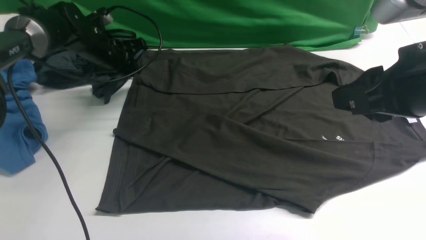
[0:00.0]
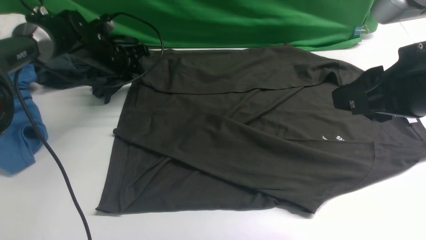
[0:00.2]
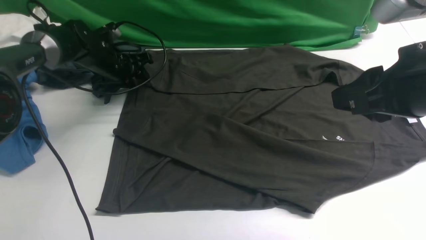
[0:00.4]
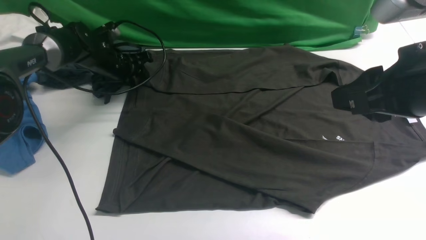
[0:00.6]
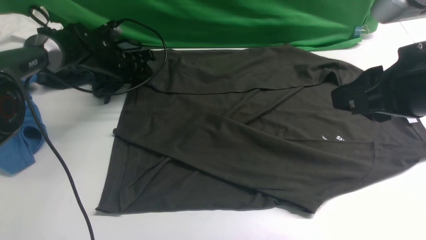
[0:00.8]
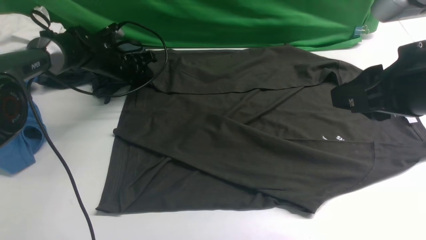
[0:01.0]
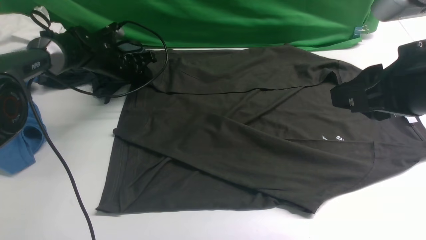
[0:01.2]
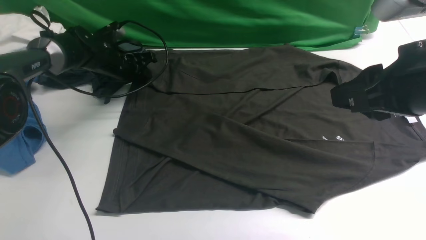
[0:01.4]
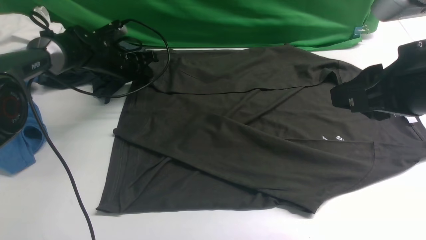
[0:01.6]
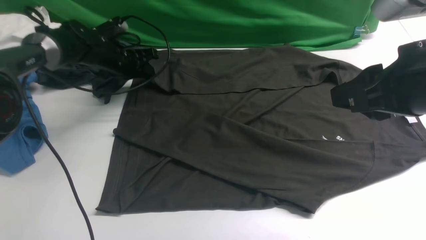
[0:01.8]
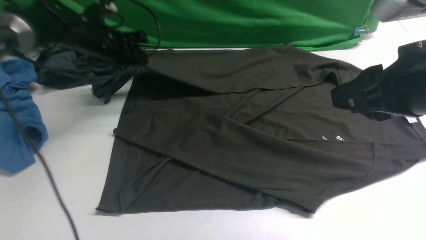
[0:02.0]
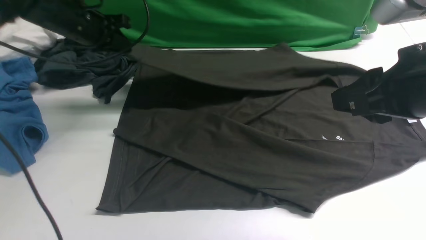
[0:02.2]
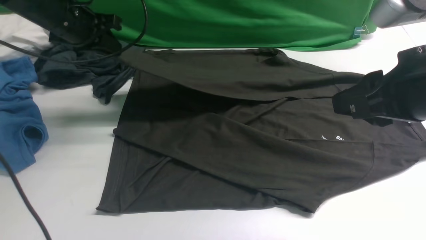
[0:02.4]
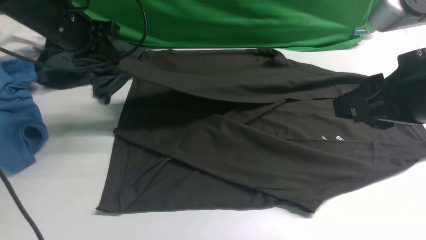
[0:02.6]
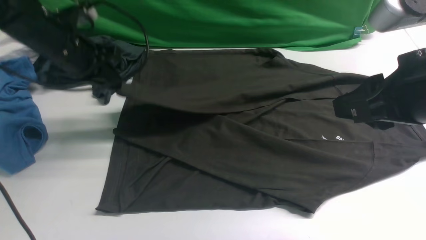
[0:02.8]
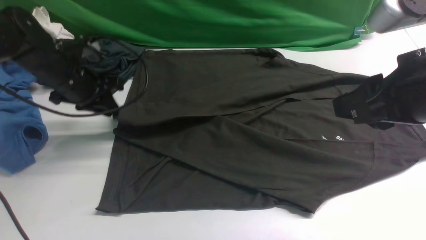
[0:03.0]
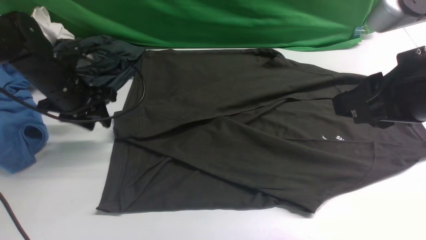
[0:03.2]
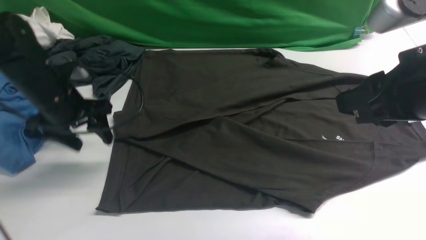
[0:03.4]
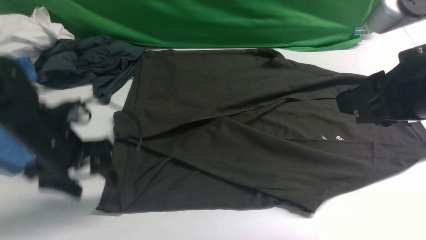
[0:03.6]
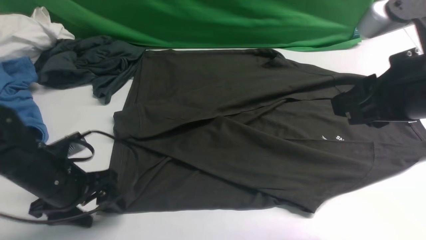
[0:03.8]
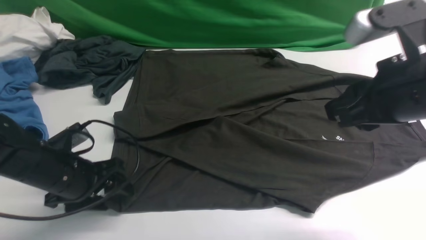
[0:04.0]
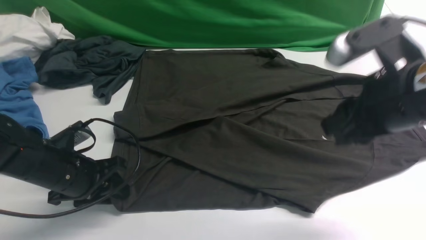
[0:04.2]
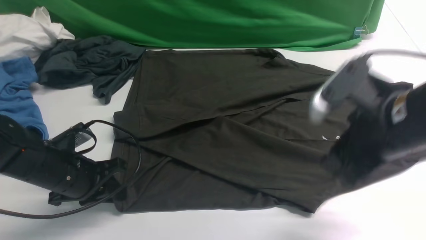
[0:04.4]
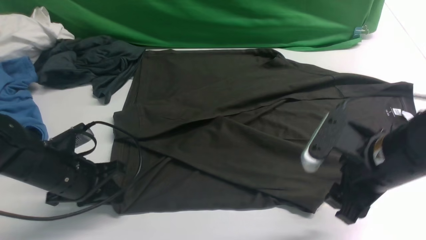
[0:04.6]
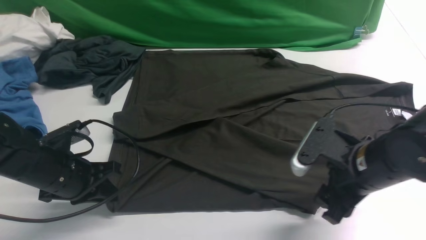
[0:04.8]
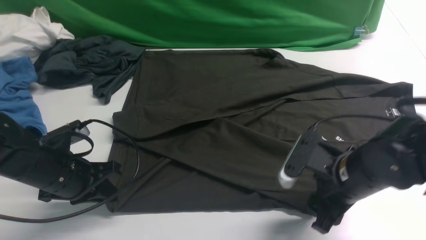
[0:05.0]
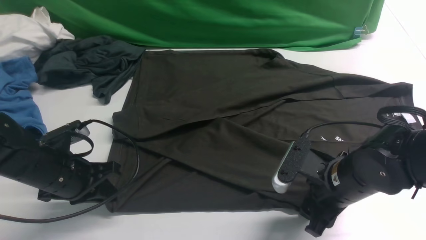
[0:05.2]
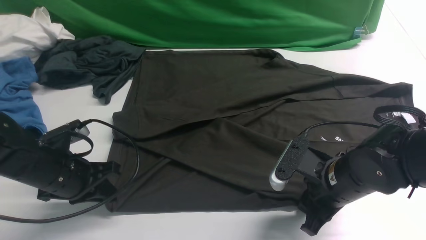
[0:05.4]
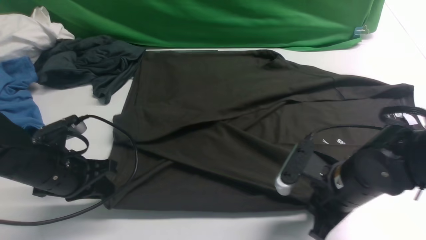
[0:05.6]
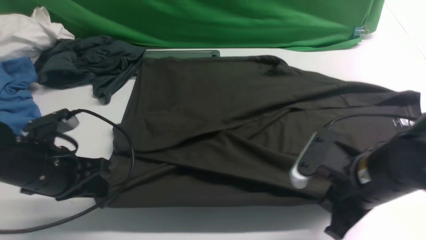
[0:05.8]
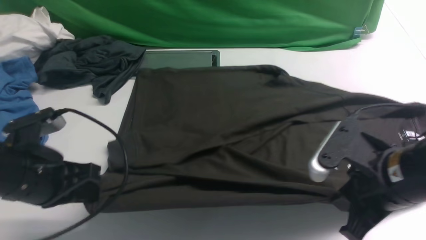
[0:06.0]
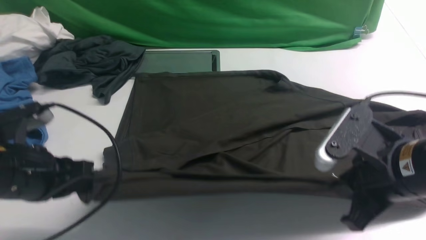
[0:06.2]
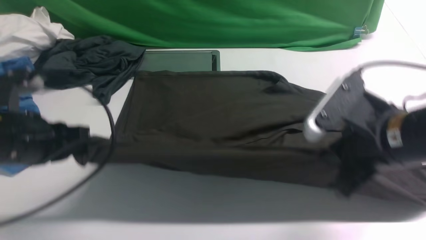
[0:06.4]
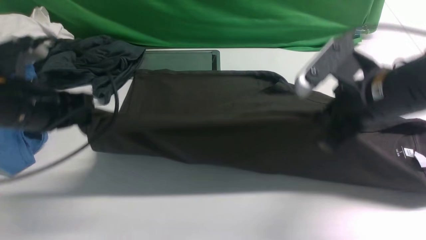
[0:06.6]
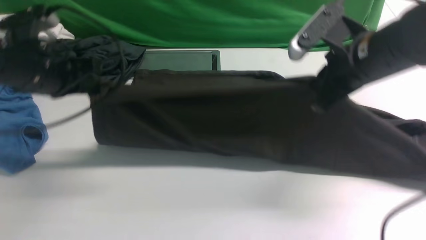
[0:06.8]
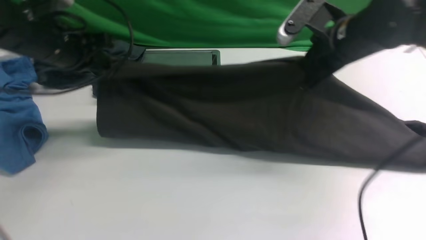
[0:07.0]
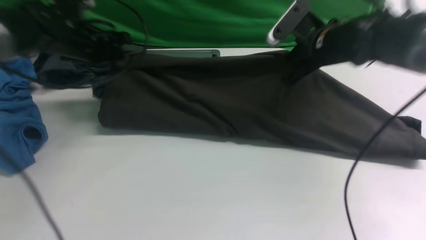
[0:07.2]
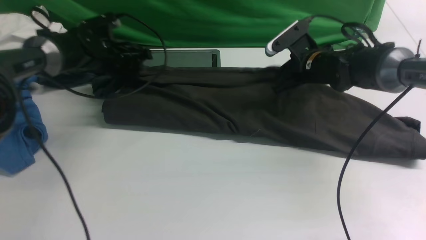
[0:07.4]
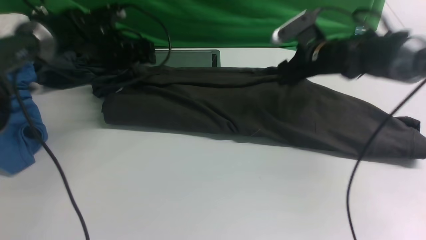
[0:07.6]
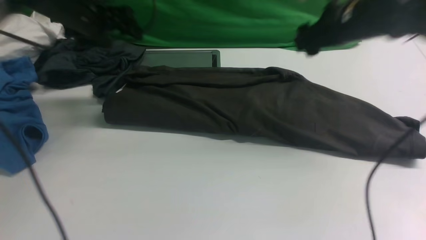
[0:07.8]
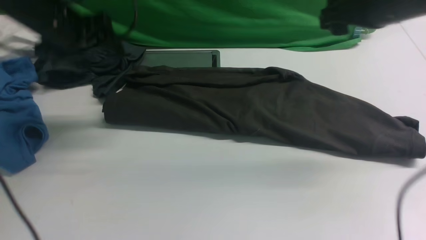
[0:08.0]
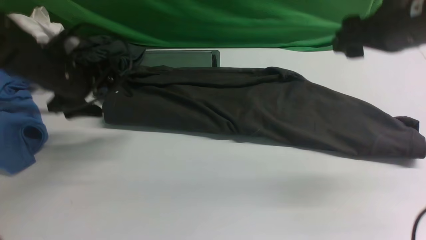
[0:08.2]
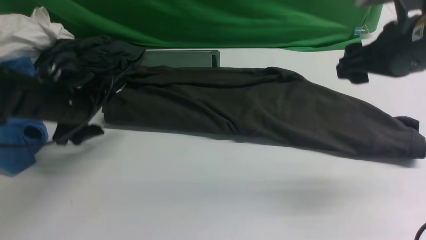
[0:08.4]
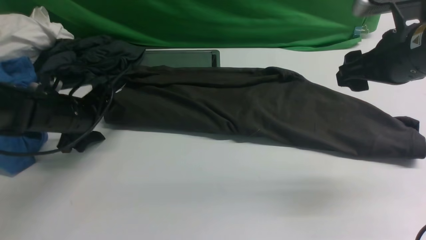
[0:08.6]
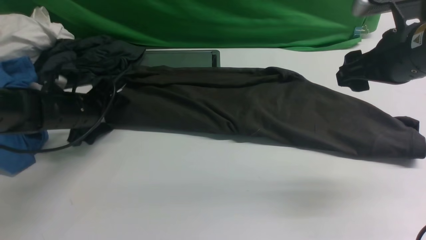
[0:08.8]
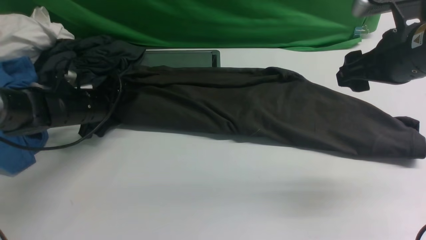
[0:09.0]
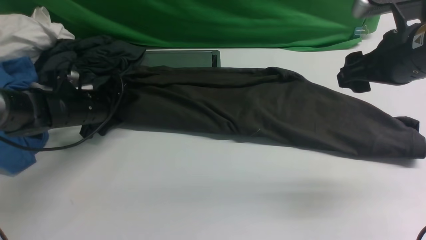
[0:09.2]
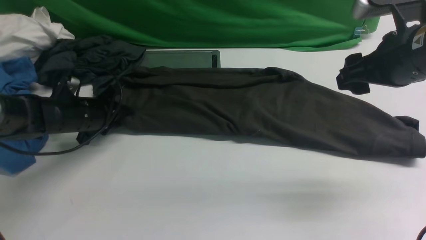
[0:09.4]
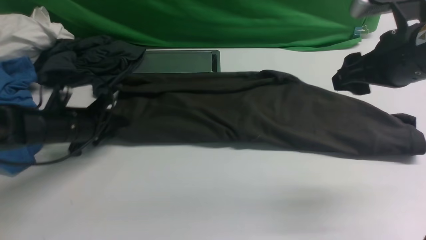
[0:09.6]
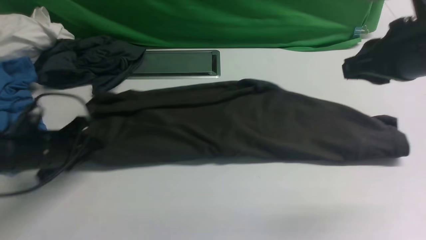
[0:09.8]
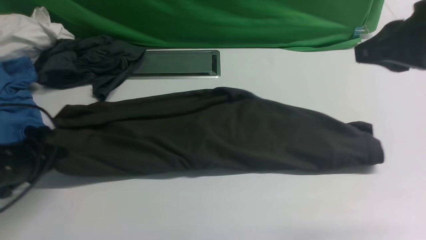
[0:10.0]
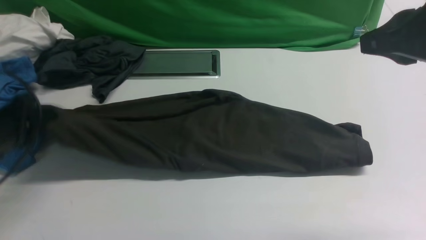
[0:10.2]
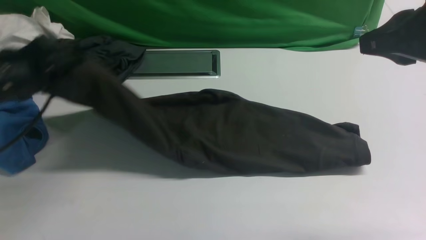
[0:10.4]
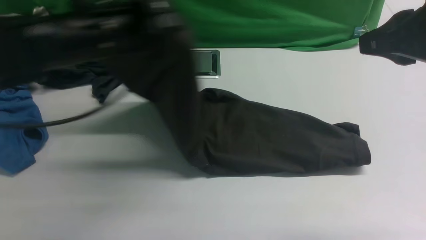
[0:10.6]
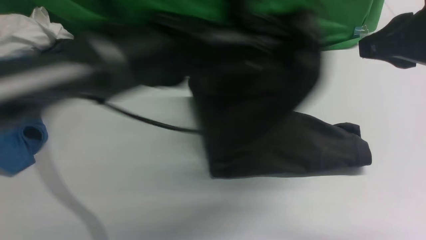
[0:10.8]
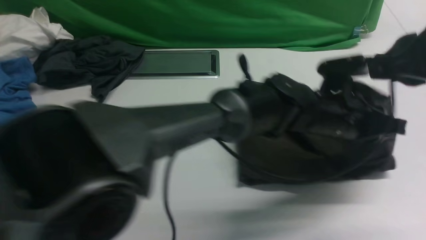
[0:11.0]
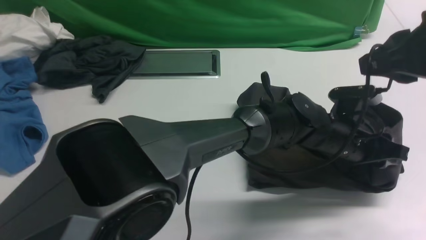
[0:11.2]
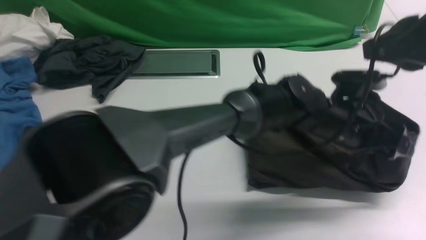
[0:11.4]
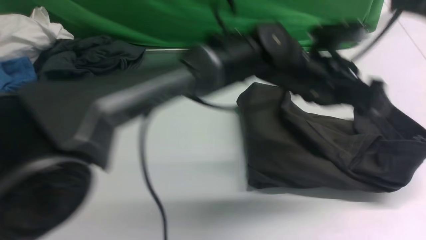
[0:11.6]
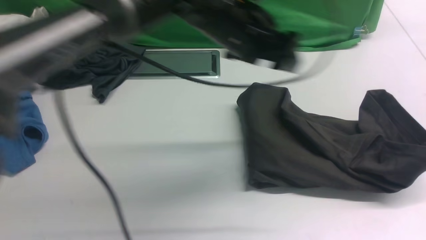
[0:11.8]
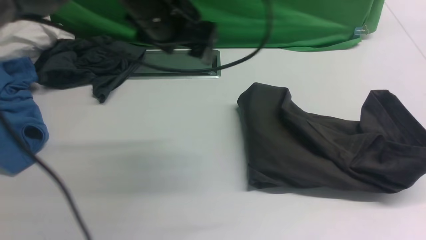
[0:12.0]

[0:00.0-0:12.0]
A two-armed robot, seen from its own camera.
Step, 0:02.0 to 0:03.0: use the left arm to drag and drop the cuff onto the cuff closest to the left arm.
Step, 0:03.2 to 0:06.0: use both arms simultaneously to clamp the lower edge of the clothing fabric.
Step, 0:06.2 to 0:07.6: use both arms to drag the lower edge of the fabric forward and fold it over the upper edge.
Step, 0:07.8 to 0:10.2: Hold the left edge of the fabric with your left arm.
Step, 0:10.4 to 0:11.6: Drag the left edge of the fabric to the left with your left arm and fold it to the right edge.
0:00.0 to 0:01.6: The grippers stay close to where they were, moving slightly.
0:01.6 to 0:03.0: The left gripper is displaced backward and upward by roughly 15 cm.
0:03.0 to 0:04.4: The right gripper shifts about 10 cm downward. The left gripper goes about 15 cm backward and downward, and opens, then closes once more.
0:04.4 to 0:06.0: The right gripper travels downward and back again, roughly 10 cm each way, and closes up. Meanwhile the left gripper travels upward by some 10 cm.
0:06.0 to 0:07.6: The two grippers go about 25 cm forward. The right gripper opens; the left gripper opens.
0:07.6 to 0:09.0: The right gripper moves backward and upward, approximately 15 cm; the left gripper travels backward and downward by some 15 cm.
0:09.0 to 0:10.4: The left gripper goes approximately 15 cm upward and backward, and closes, while the right gripper shifts about 10 cm upward and backward, and closes.
0:10.4 to 0:12.0: The right gripper moves approximately 5 cm, and opens. The left gripper moves to the right, approximately 15 cm, and opens its fingers.

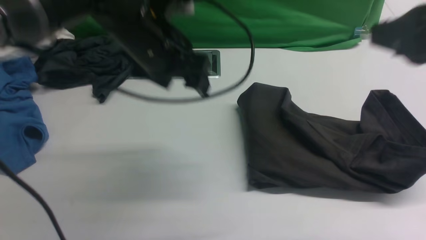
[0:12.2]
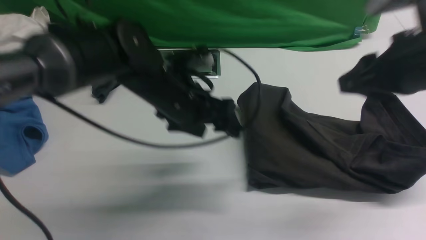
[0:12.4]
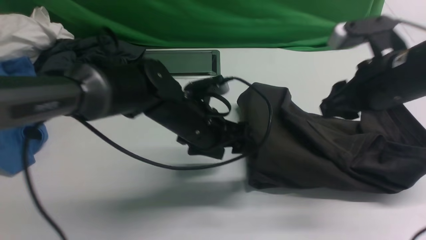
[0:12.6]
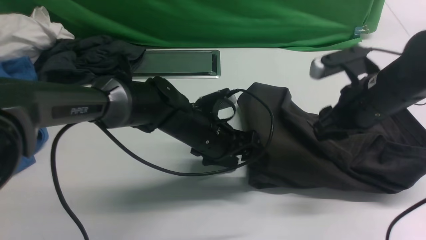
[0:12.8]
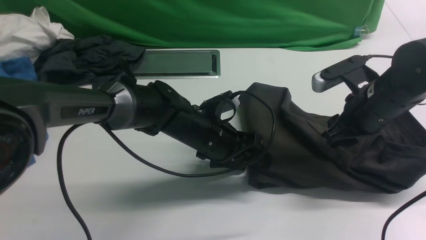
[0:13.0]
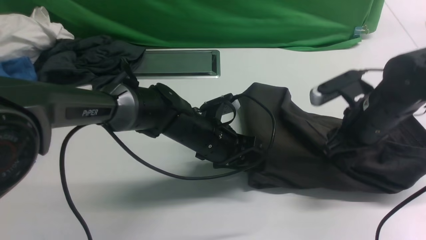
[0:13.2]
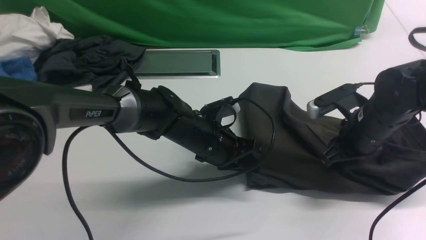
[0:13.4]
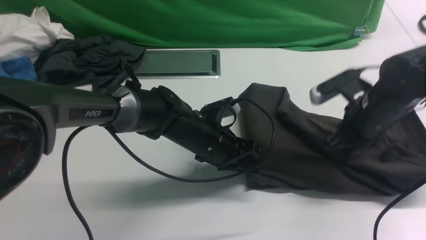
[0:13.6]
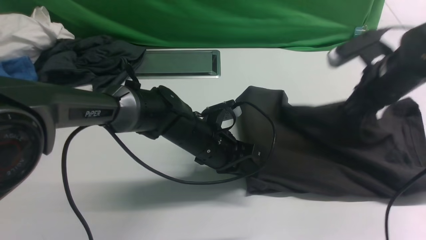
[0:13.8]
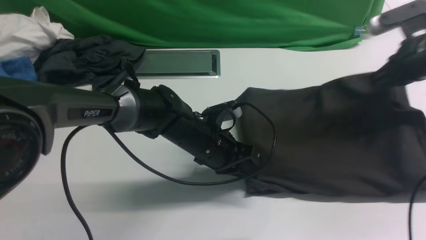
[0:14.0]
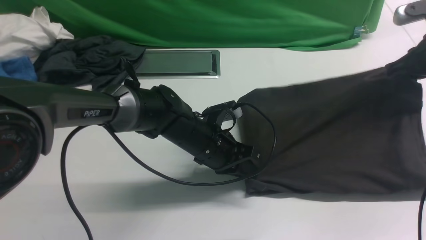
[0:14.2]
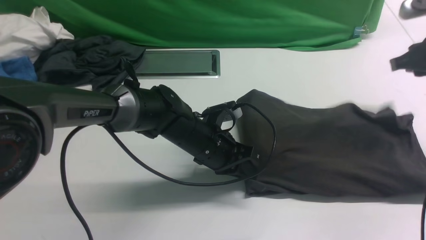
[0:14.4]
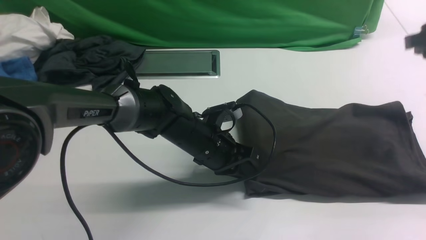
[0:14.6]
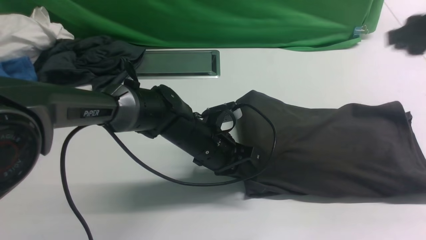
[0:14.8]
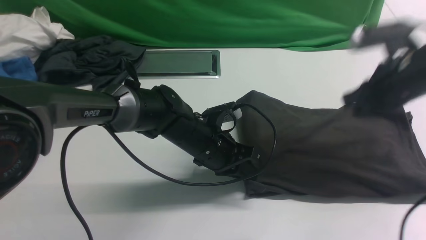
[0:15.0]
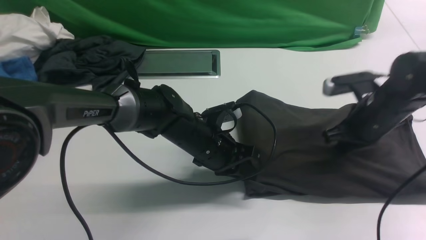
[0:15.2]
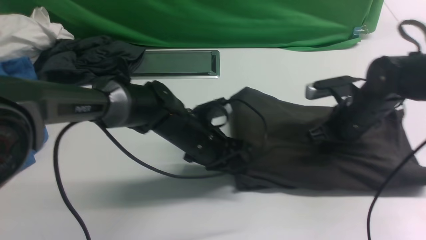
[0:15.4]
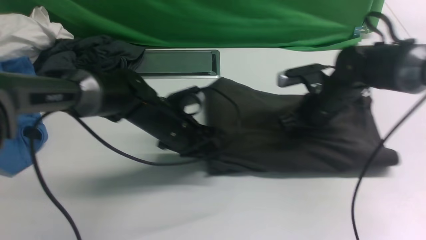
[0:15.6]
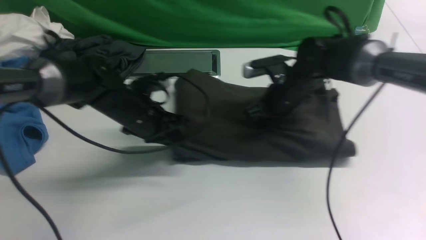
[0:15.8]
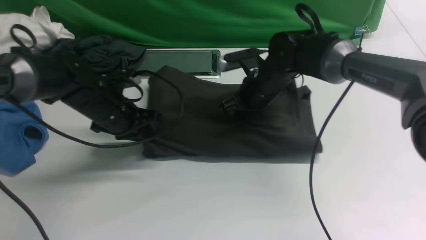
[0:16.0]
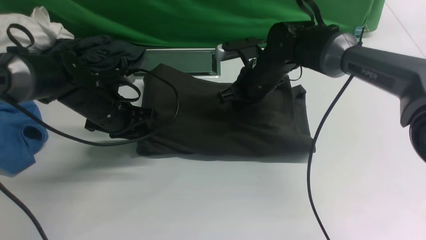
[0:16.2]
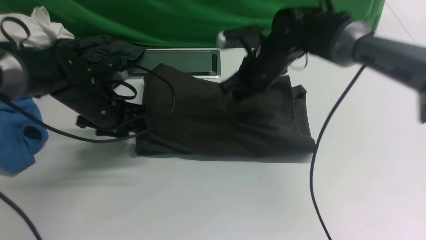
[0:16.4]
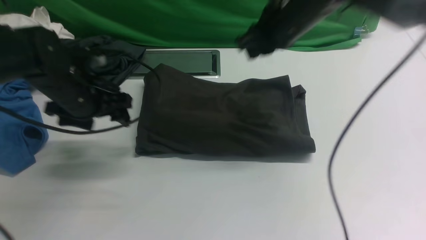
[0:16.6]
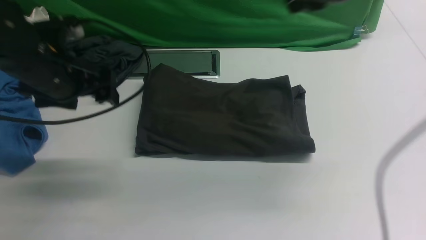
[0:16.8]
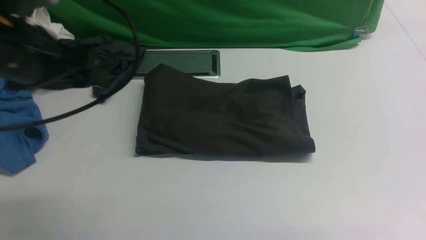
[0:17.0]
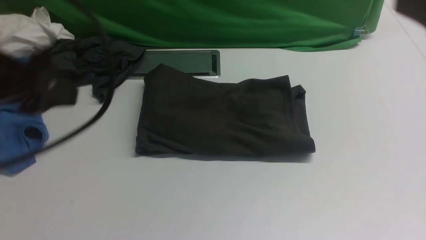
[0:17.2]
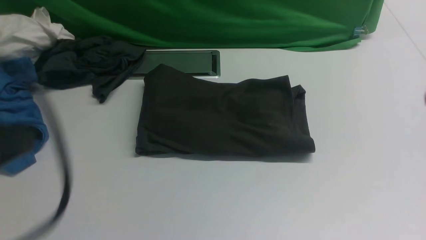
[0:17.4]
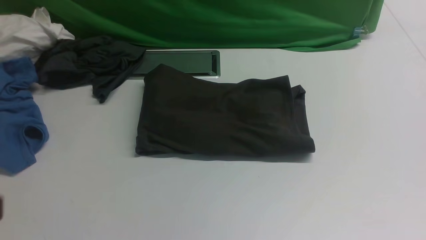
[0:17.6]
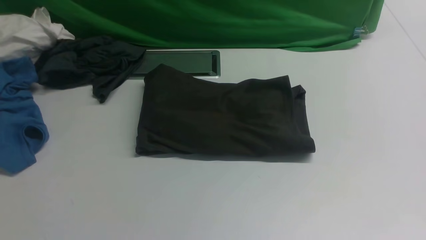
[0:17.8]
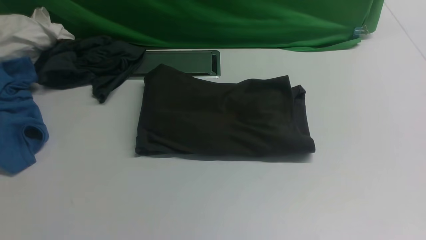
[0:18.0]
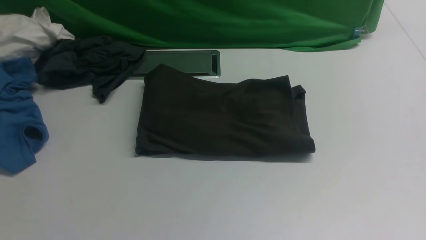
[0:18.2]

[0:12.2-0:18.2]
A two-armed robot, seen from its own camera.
0:12.2 to 0:13.8: The right gripper heads downward and forward, covering approximately 20 cm, and closes its fingers. The left gripper heads downward, covering some 15 cm, and closes up.
0:13.8 to 0:15.2: The right gripper heads downward, covering roughly 5 cm, and opens and closes again.
0:15.2 to 0:16.6: The right gripper travels upward and to the left by about 20 cm. Meanwhile the left gripper heads to the left and upward, covering about 20 cm, and opens its fingers.
0:16.6 to 0:18.2: The left gripper moves backward, about 35 cm, and closes its fingers, while the right gripper goes about 35 cm backward and to the right.
